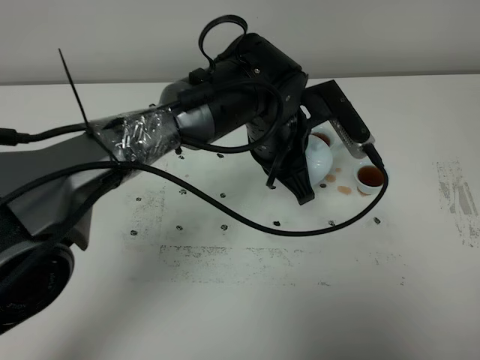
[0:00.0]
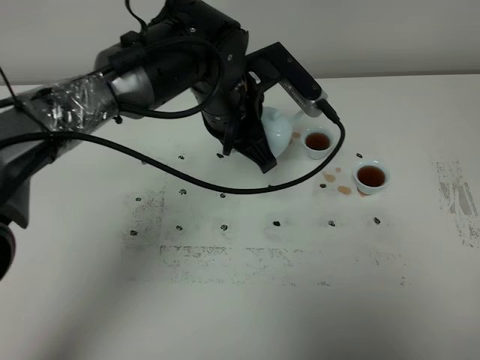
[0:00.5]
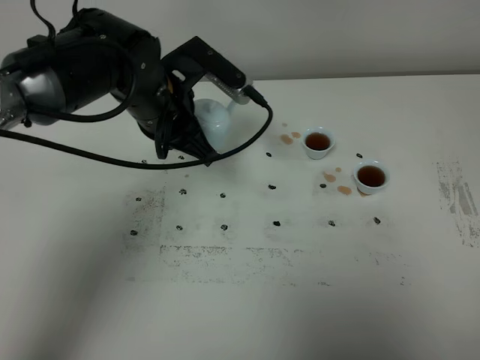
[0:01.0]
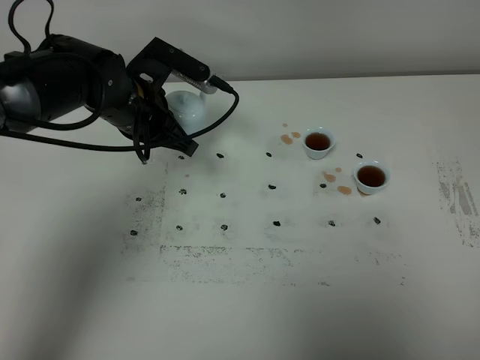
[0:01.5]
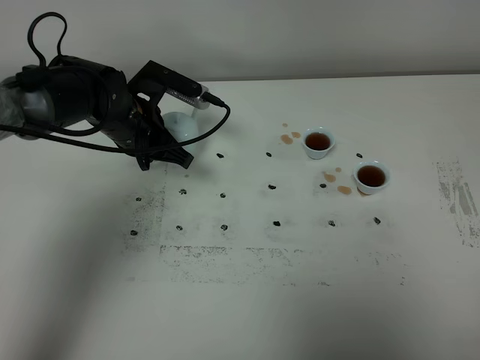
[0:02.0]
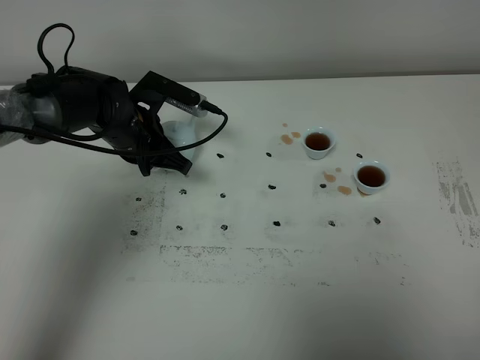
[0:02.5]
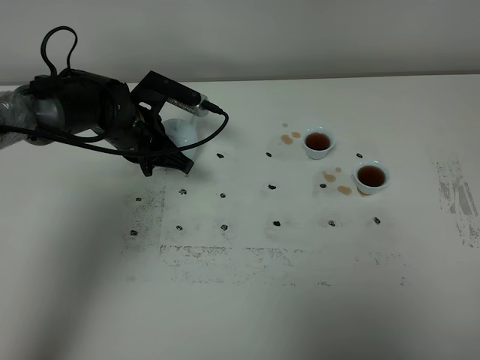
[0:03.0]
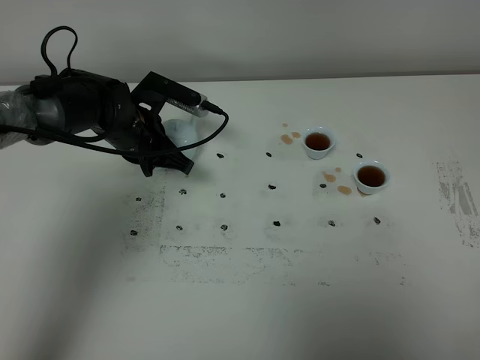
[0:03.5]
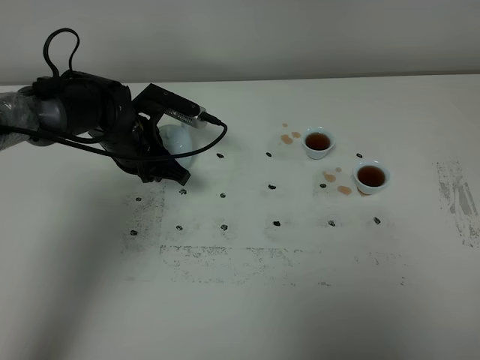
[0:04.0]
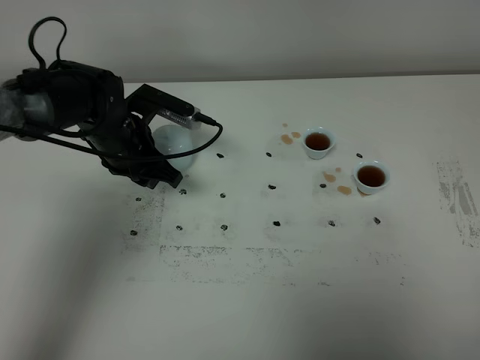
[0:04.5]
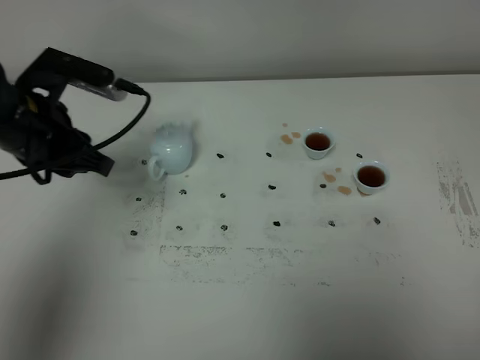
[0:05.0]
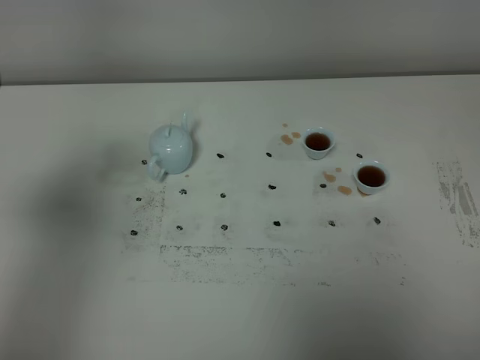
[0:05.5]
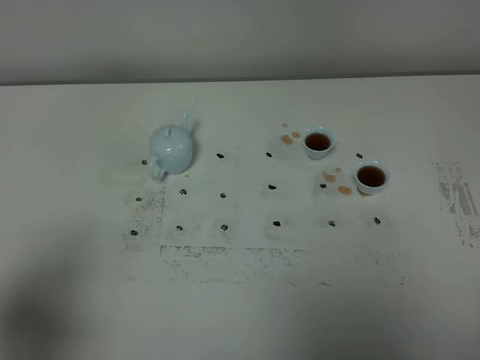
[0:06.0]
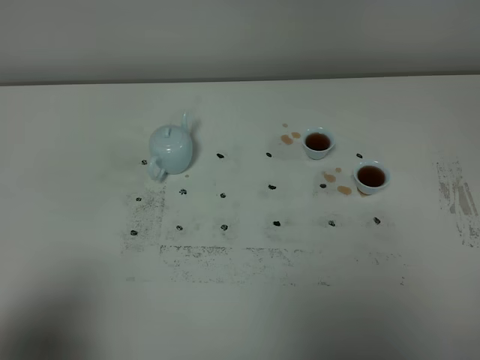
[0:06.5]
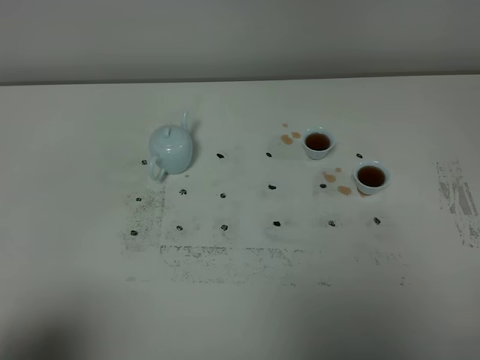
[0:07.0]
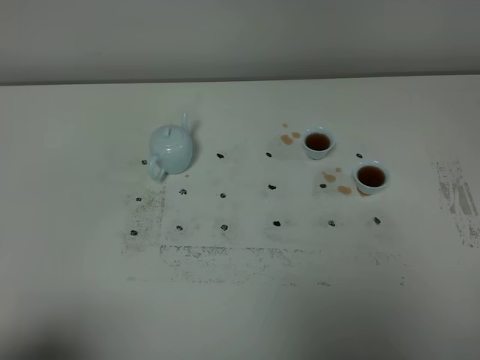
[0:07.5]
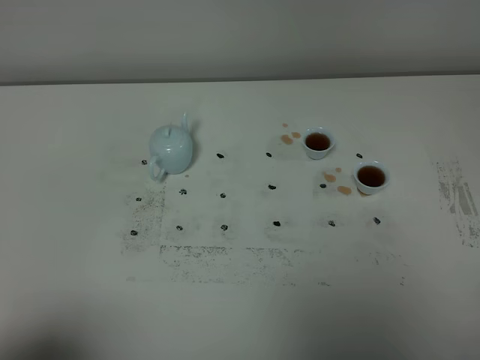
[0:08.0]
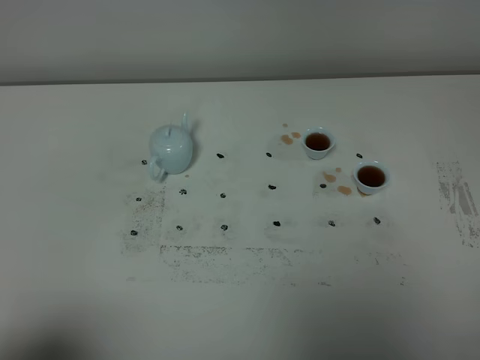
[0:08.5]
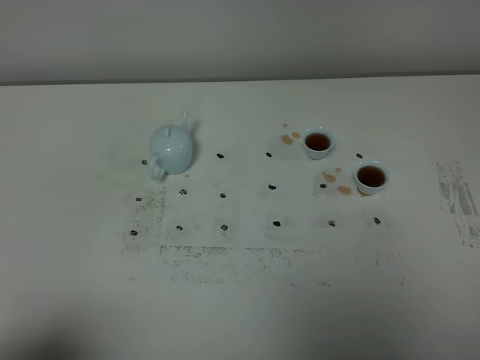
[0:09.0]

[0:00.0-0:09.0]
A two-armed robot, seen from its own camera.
Task of the whole recording: grasp the blue porcelain teapot and pour the tea into the two blue porcelain teacups one by one, put the blue porcelain teapot back in its original place.
0:00.0 to 0:02.0: The left gripper heads to the left, covering roughly 20 cm.
0:02.0 to 0:04.5: The left gripper opens.
0:04.5 to 0:07.0: The left gripper goes approximately 40 cm backward.
